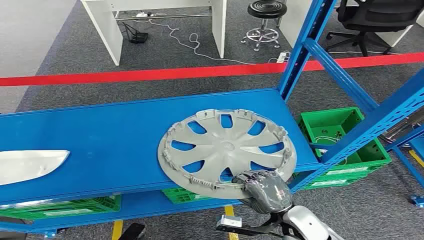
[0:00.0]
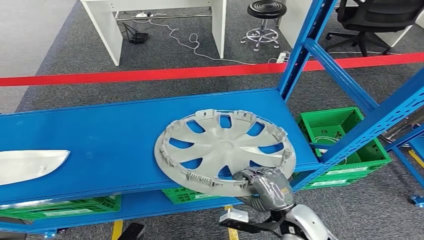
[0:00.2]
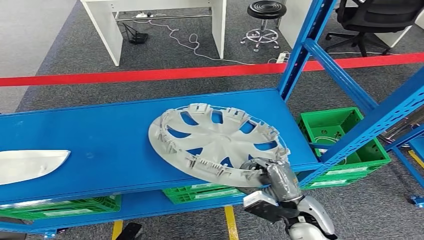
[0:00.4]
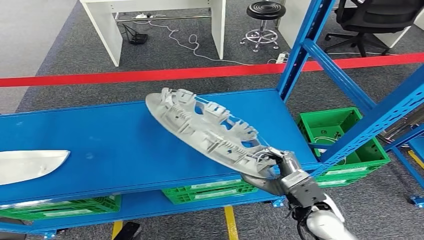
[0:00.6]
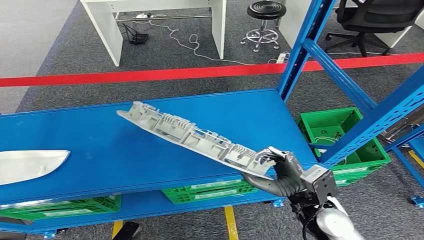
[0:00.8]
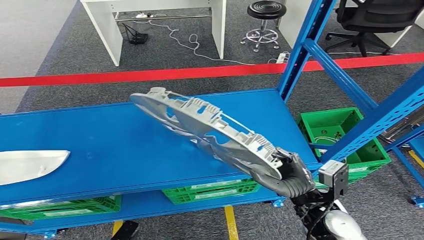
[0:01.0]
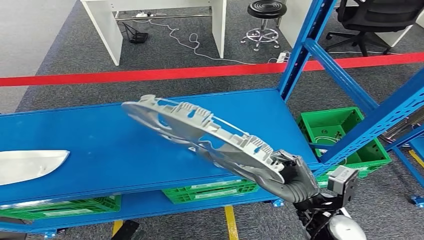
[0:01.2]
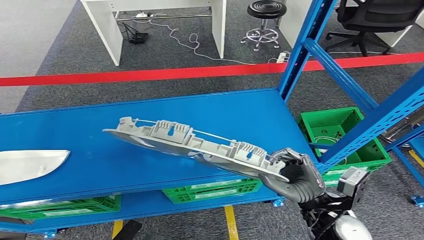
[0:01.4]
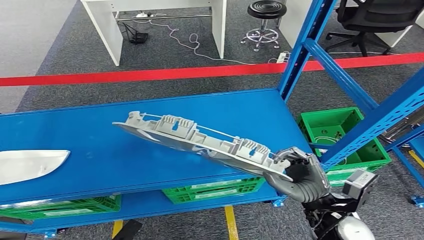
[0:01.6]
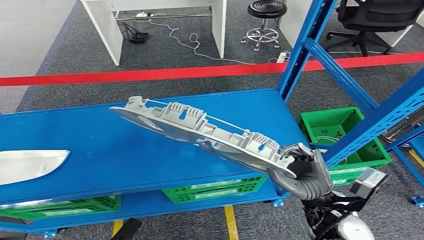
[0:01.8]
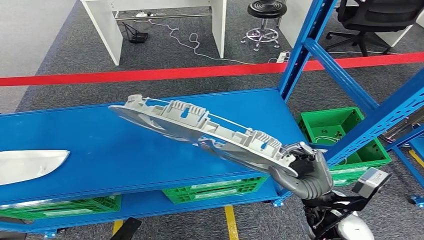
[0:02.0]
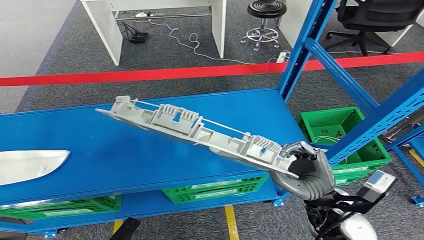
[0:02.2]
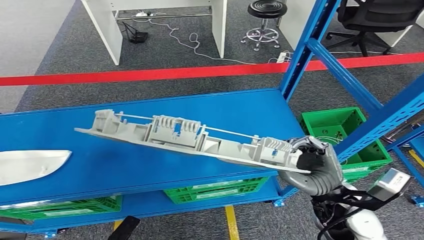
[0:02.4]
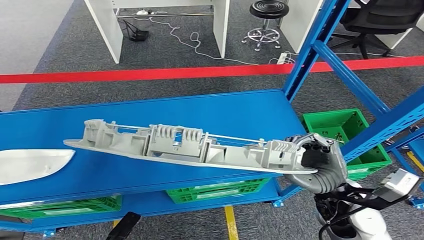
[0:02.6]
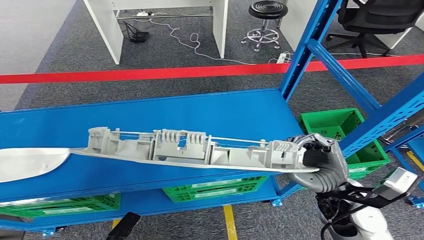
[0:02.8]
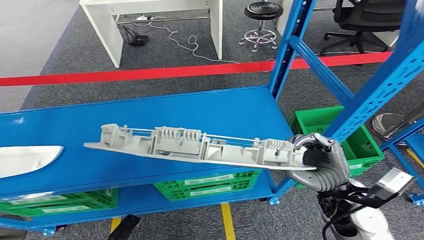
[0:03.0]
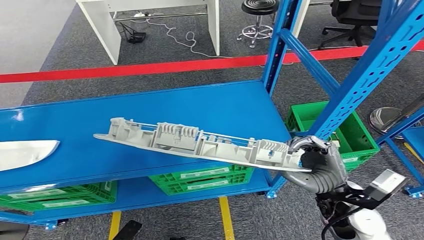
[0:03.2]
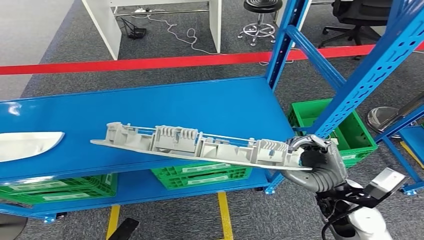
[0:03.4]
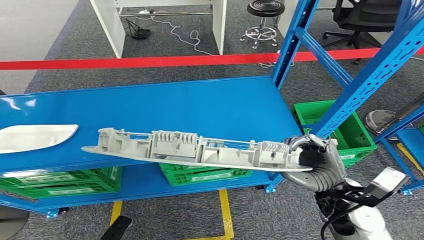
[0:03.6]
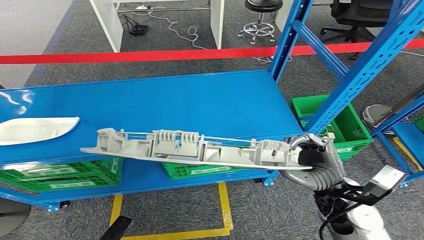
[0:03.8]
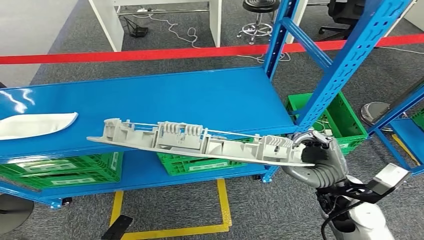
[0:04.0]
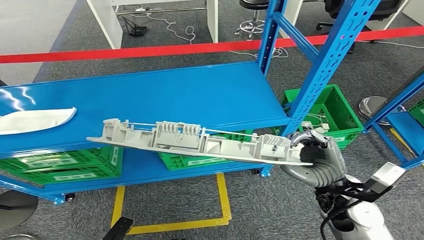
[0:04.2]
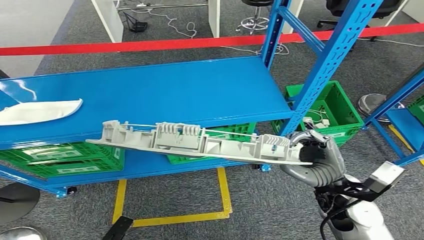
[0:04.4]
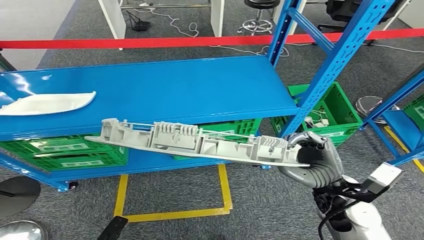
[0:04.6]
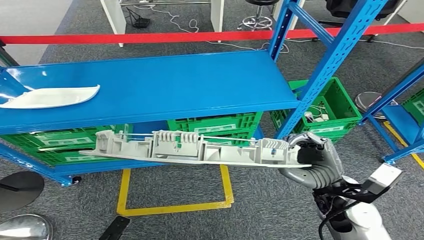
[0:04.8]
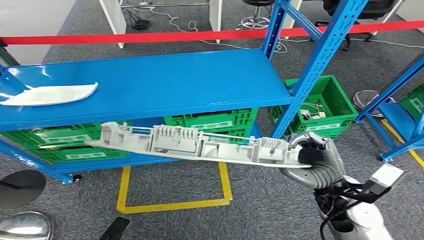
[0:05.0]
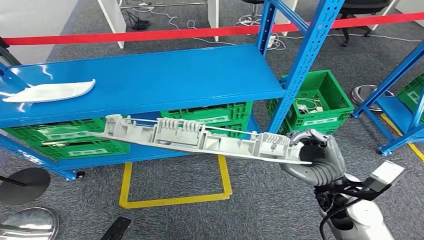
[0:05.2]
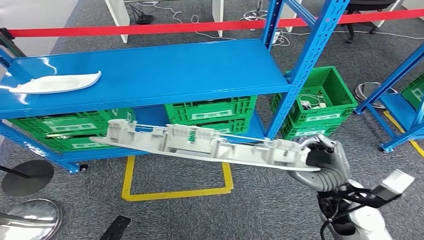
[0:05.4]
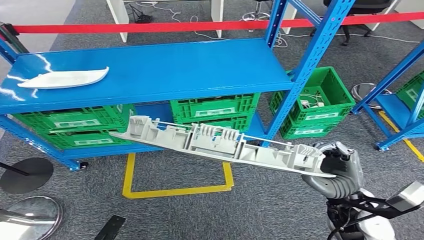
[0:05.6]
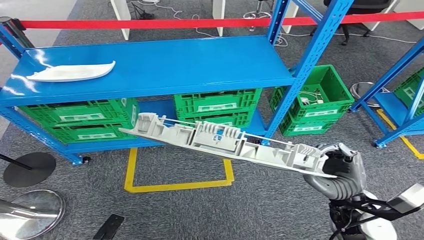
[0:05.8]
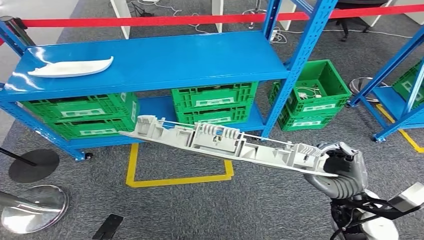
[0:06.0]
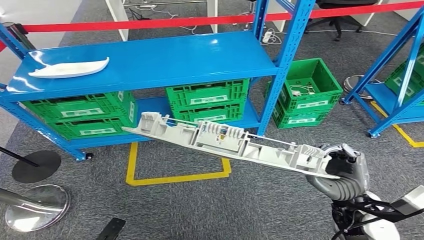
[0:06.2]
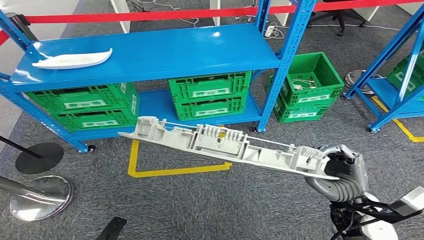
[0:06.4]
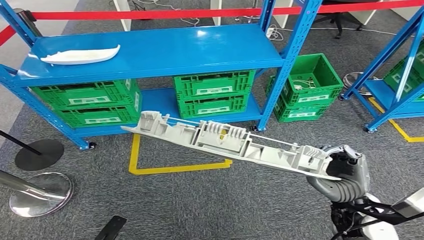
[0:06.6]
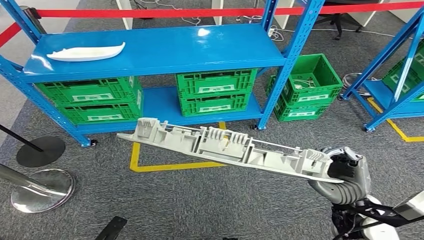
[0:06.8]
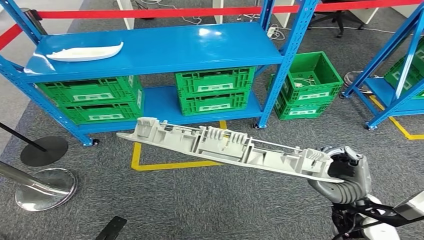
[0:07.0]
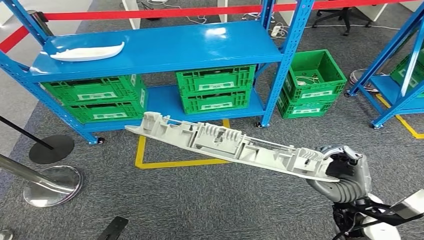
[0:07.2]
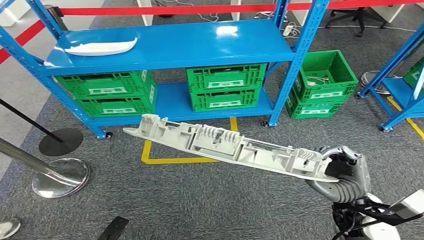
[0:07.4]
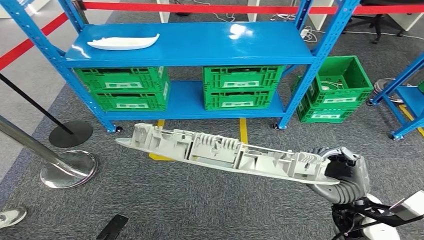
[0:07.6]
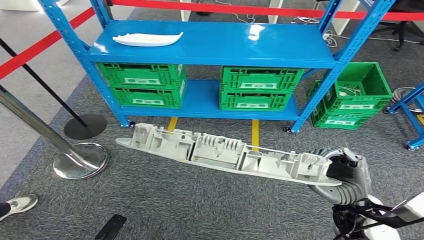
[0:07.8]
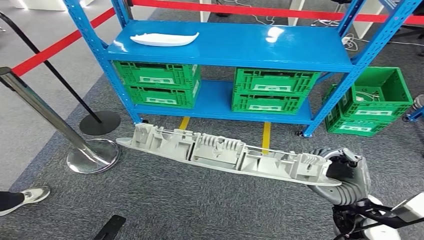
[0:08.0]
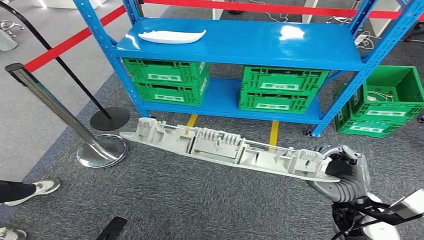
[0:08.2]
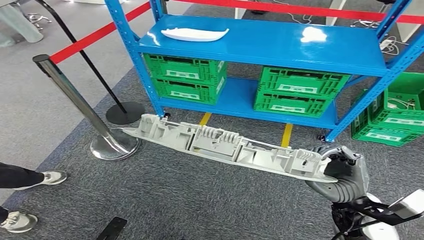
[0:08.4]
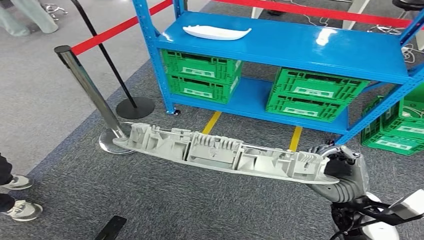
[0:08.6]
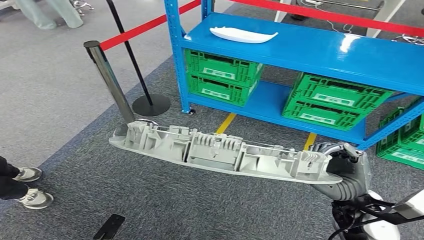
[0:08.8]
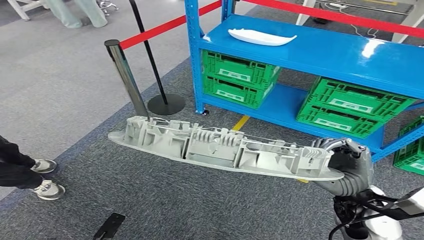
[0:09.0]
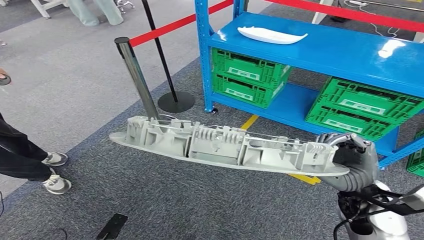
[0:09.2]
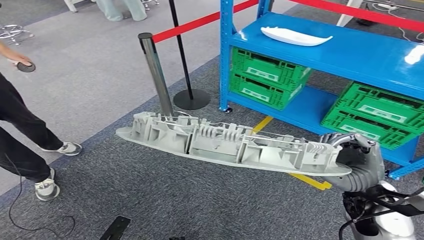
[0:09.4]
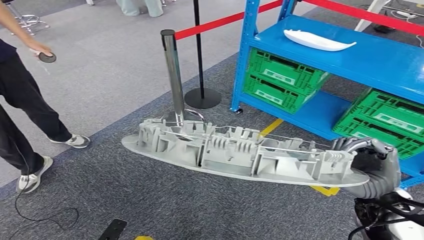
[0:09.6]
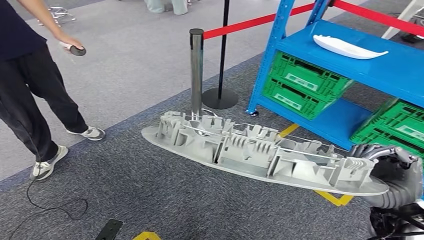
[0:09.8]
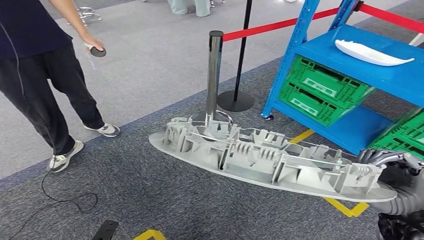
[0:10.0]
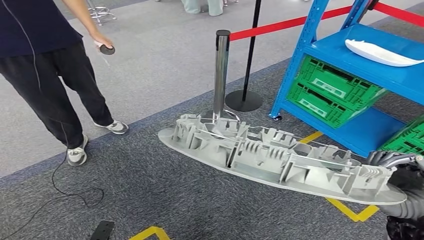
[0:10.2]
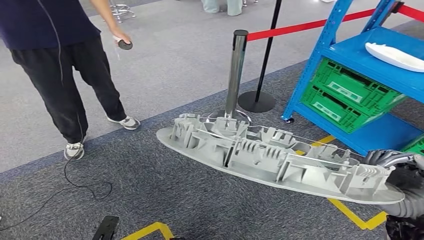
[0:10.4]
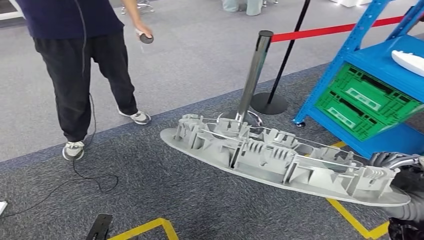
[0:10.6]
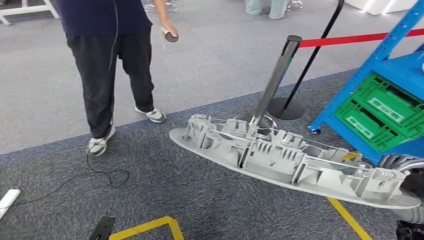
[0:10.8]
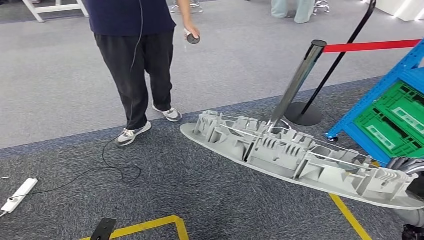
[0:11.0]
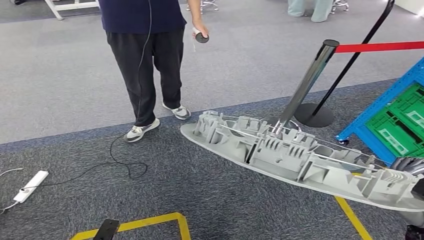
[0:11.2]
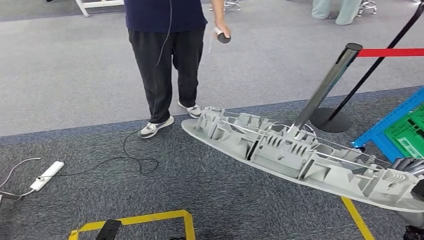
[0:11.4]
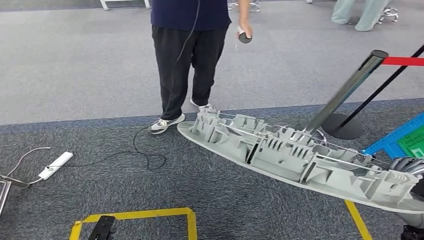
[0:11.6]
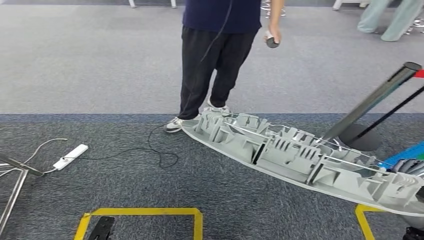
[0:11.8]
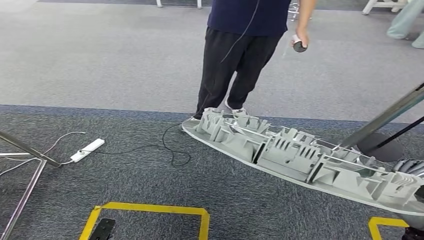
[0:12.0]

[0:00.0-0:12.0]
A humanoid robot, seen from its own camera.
Step, 0:00.0 to 0:07.0: Pick up the small component from the shelf.

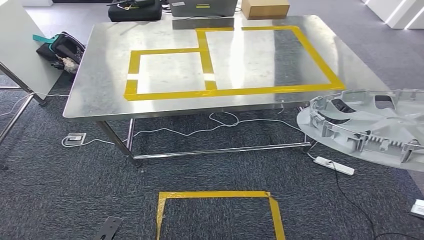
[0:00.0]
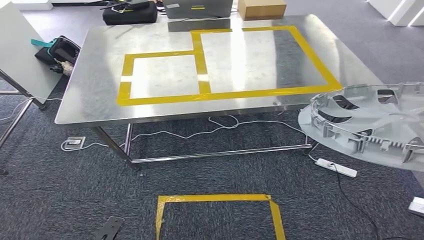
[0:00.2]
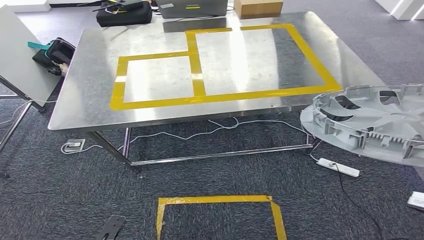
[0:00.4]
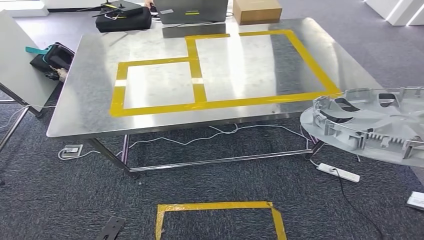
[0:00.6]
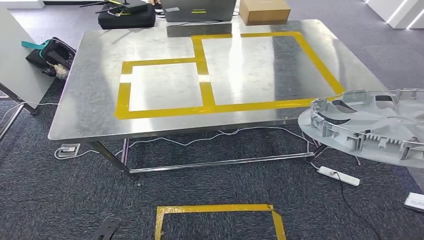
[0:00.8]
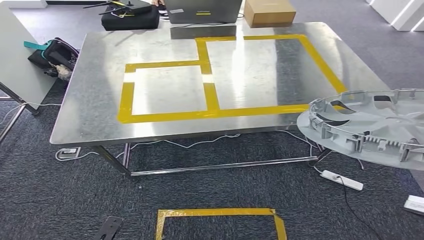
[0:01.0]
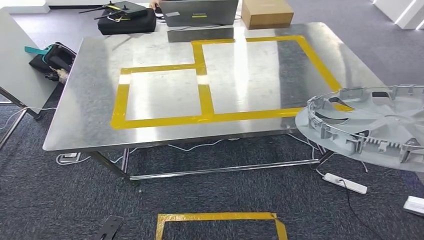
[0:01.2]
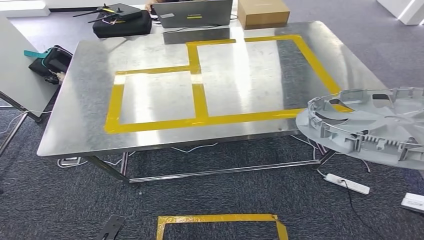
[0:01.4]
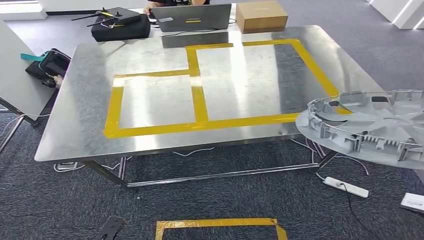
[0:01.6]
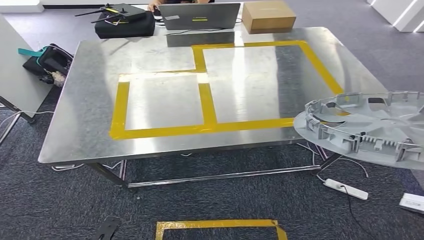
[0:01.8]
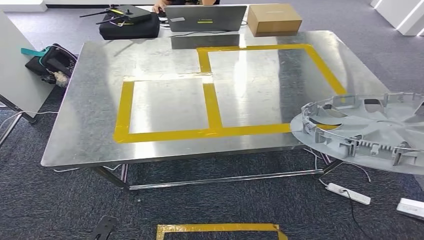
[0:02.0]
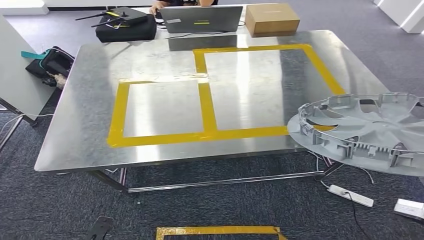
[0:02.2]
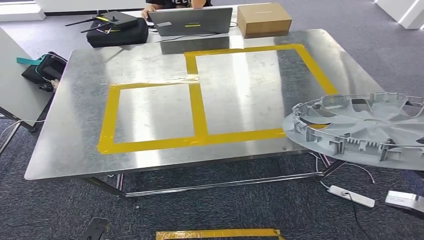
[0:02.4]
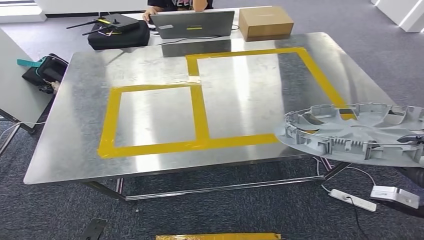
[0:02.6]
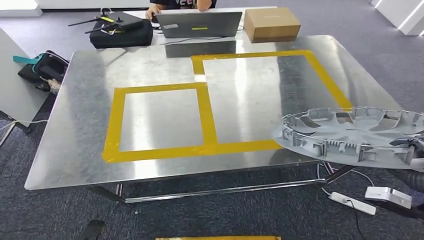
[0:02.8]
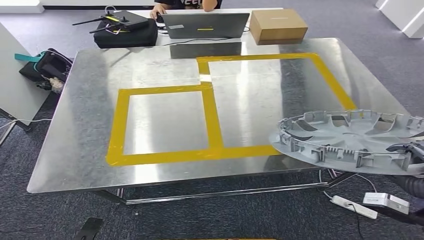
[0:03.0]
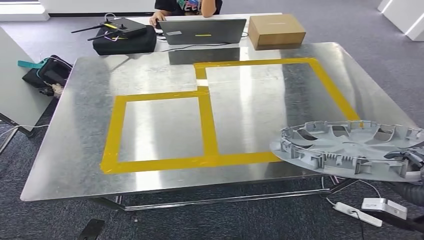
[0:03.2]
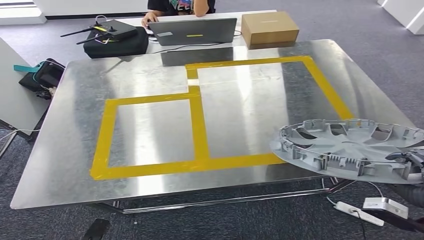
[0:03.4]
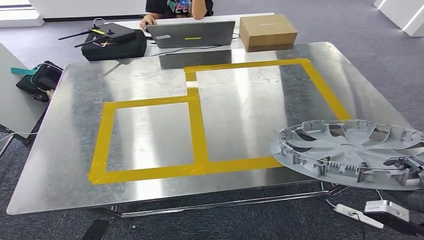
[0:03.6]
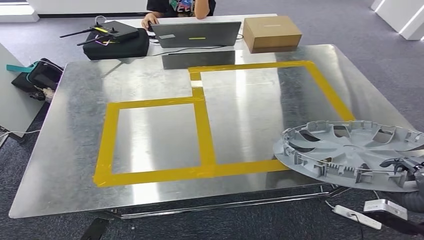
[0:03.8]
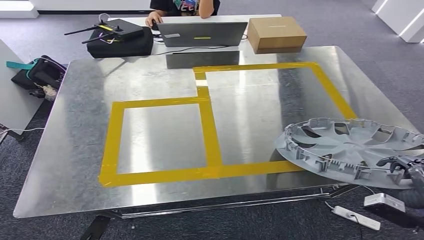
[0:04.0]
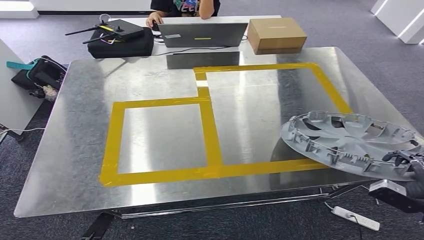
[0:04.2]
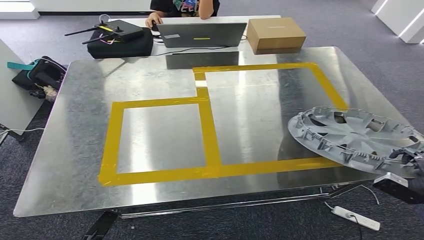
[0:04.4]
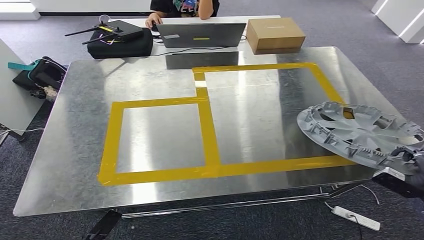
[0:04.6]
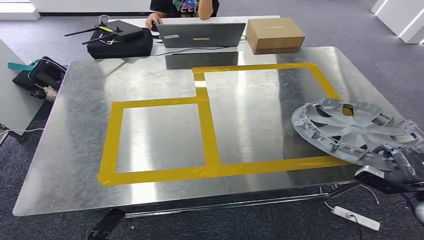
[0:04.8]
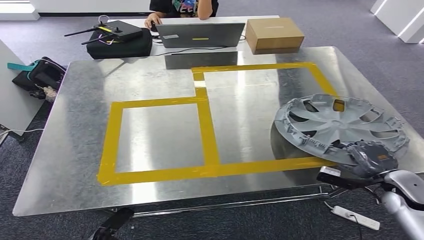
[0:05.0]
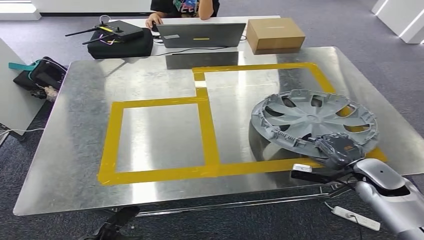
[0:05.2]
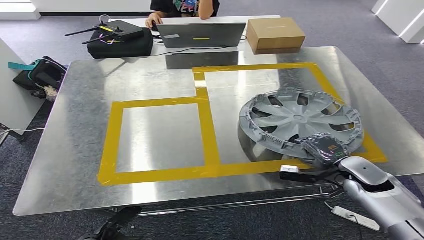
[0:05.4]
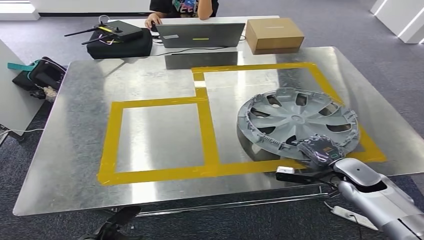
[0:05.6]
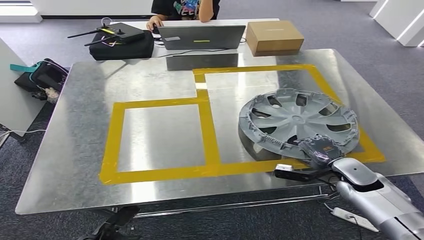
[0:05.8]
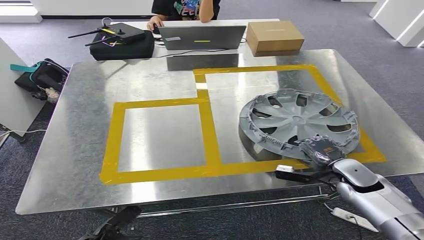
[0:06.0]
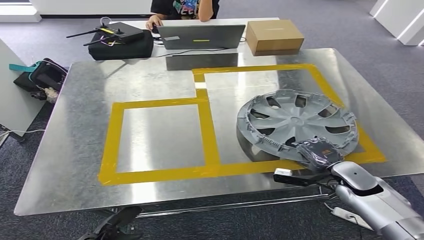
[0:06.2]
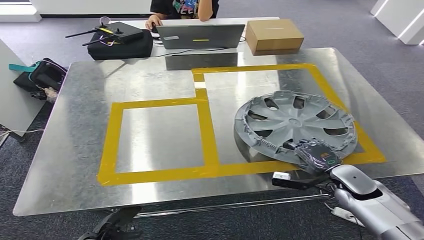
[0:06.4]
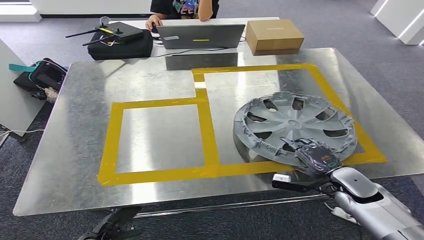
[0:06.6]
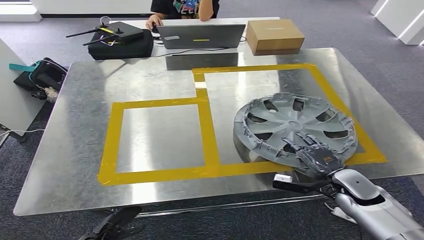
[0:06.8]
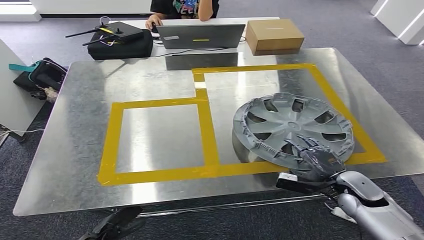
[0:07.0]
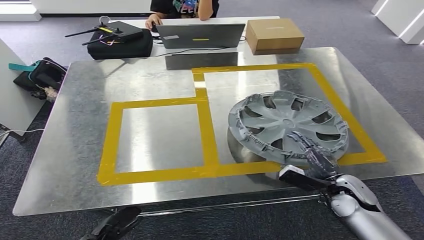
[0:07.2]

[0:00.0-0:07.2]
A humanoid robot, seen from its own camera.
0:05.8 to 0:07.2: The right hand moves roughly 5 cm.
